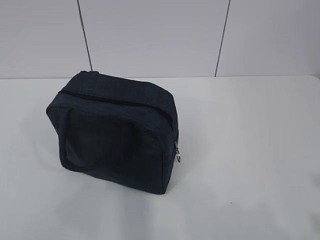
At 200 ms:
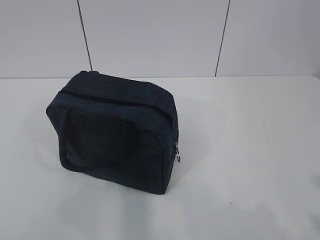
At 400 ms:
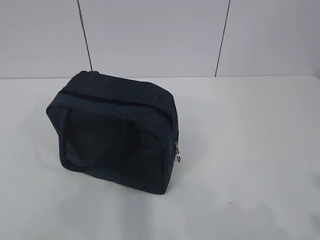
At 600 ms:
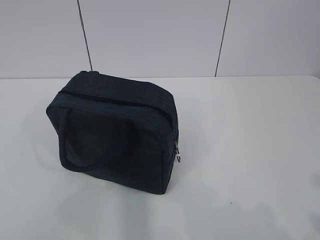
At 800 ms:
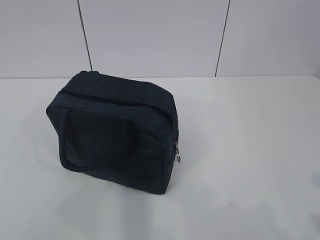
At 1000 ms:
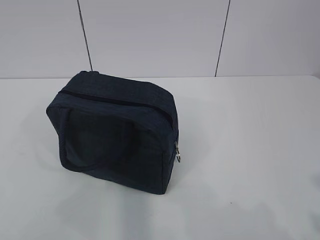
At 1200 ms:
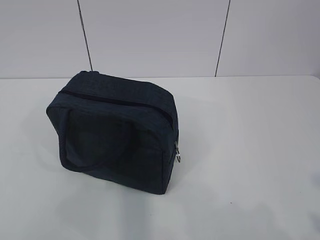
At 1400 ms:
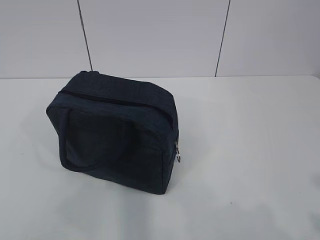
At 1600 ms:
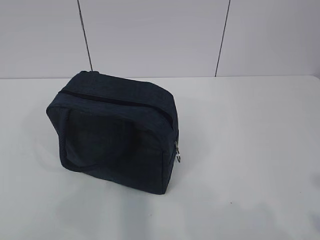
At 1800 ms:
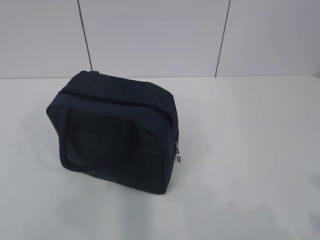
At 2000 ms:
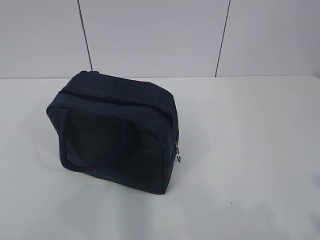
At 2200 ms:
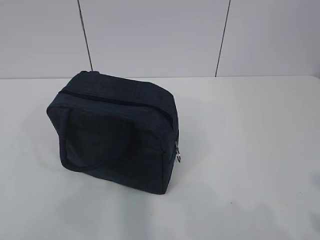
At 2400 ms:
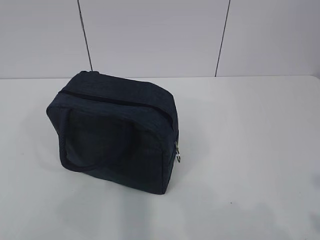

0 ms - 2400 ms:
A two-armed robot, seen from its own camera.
0 ms - 2400 ms: Both grippers stay put.
